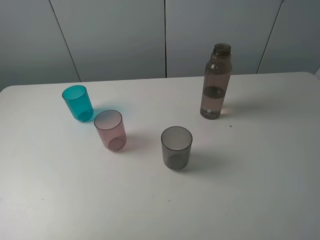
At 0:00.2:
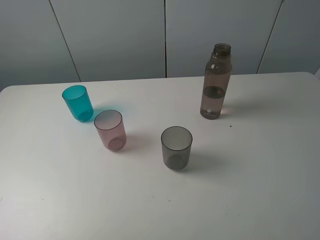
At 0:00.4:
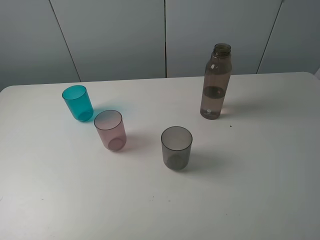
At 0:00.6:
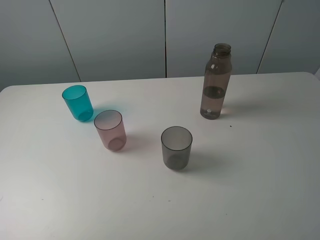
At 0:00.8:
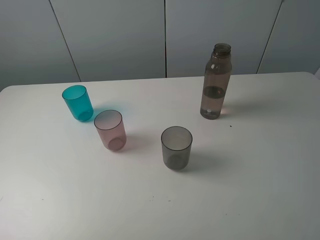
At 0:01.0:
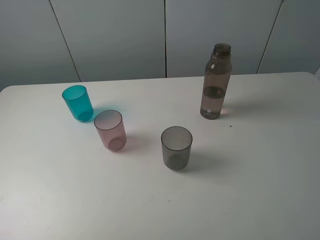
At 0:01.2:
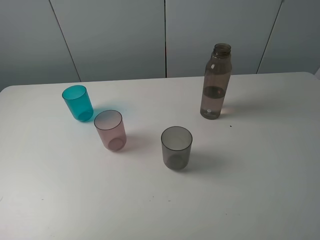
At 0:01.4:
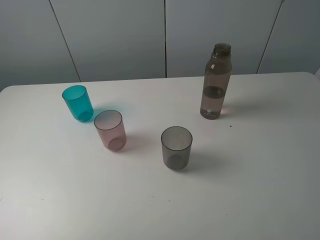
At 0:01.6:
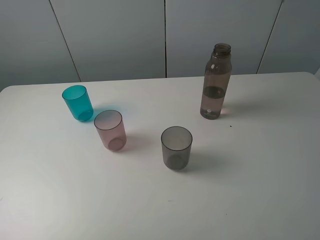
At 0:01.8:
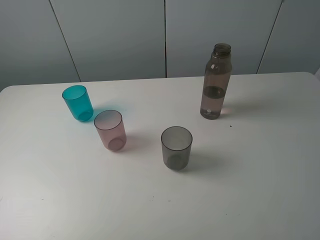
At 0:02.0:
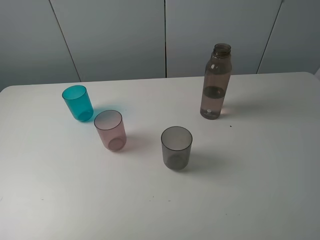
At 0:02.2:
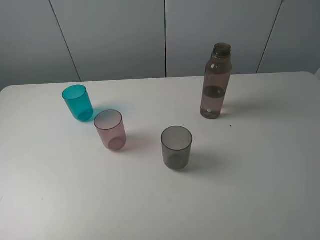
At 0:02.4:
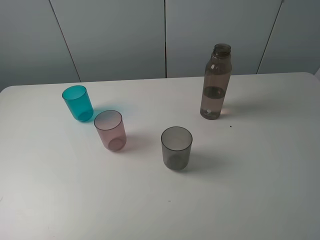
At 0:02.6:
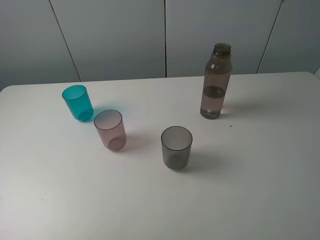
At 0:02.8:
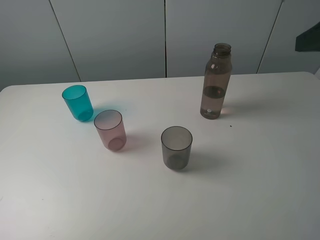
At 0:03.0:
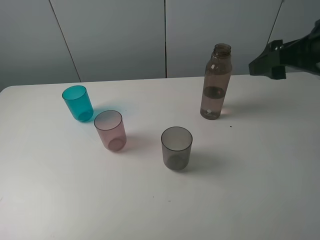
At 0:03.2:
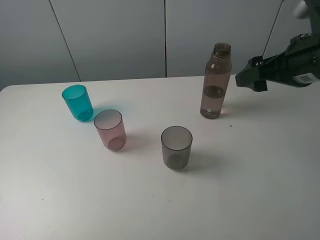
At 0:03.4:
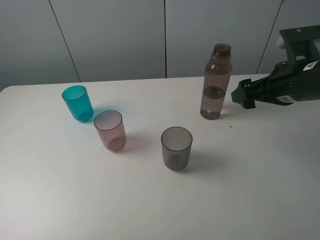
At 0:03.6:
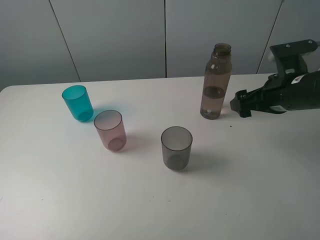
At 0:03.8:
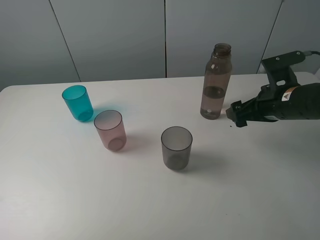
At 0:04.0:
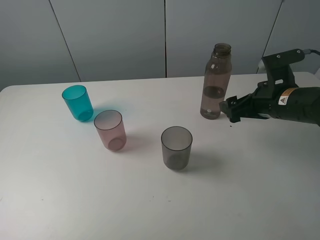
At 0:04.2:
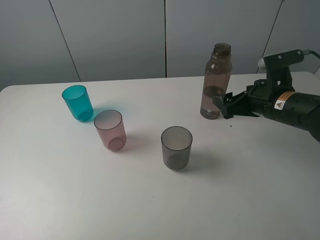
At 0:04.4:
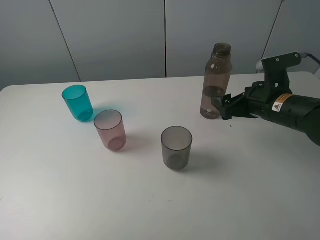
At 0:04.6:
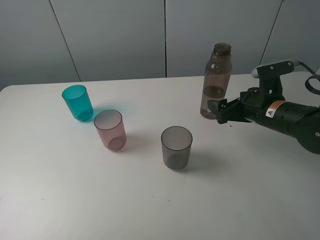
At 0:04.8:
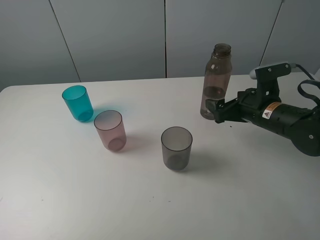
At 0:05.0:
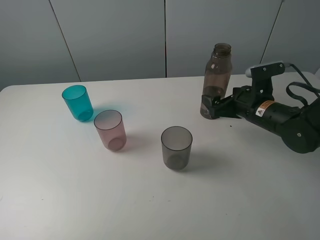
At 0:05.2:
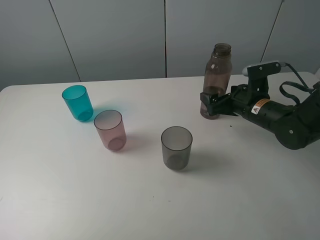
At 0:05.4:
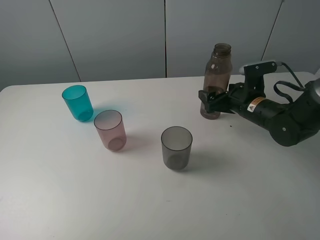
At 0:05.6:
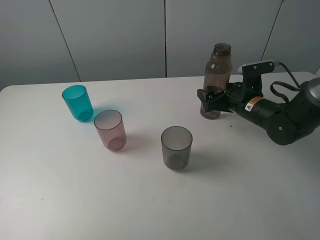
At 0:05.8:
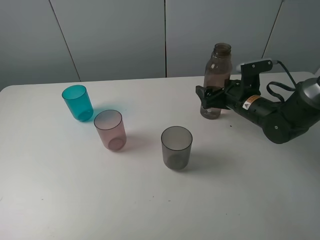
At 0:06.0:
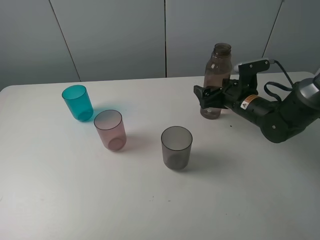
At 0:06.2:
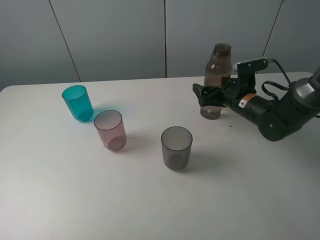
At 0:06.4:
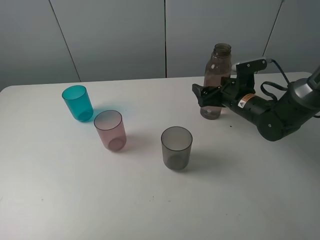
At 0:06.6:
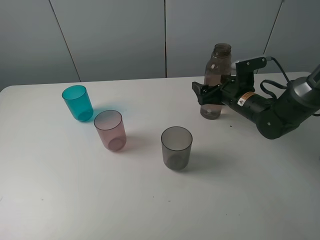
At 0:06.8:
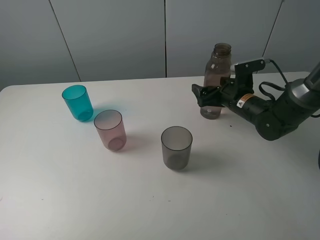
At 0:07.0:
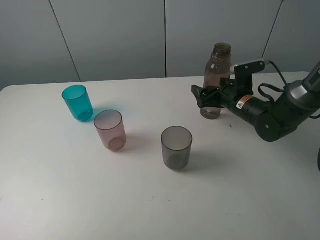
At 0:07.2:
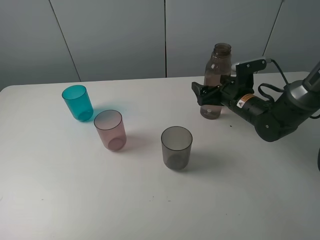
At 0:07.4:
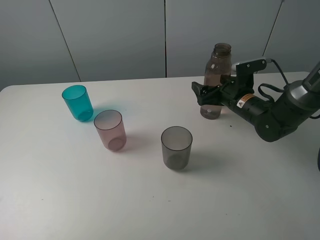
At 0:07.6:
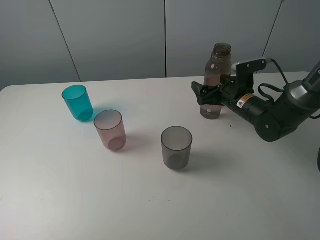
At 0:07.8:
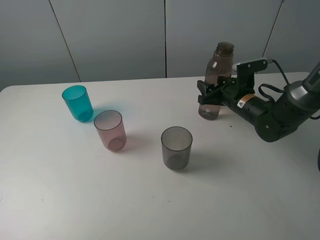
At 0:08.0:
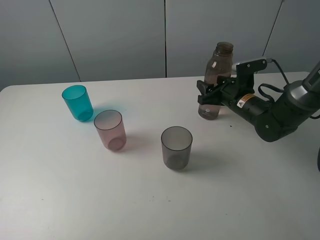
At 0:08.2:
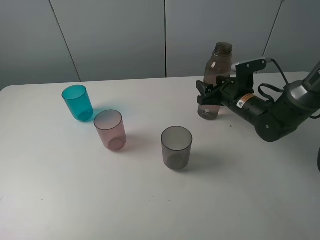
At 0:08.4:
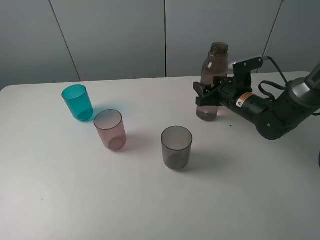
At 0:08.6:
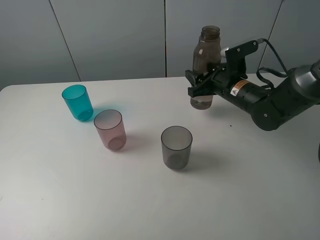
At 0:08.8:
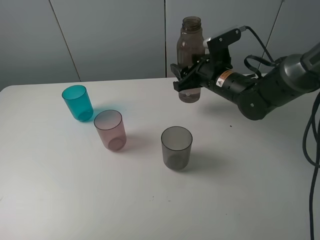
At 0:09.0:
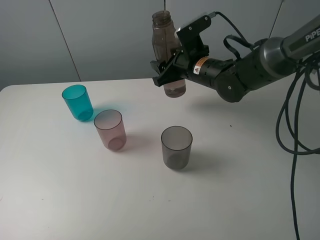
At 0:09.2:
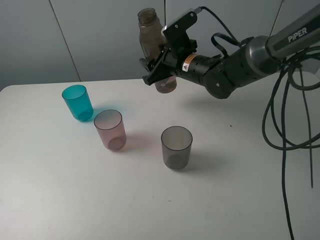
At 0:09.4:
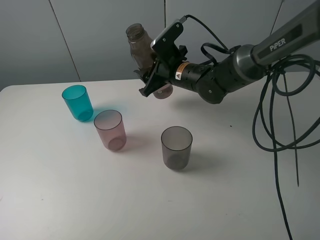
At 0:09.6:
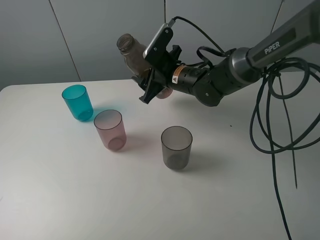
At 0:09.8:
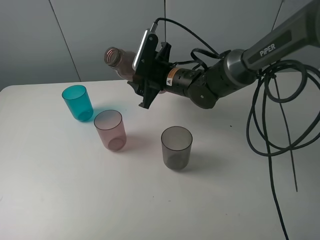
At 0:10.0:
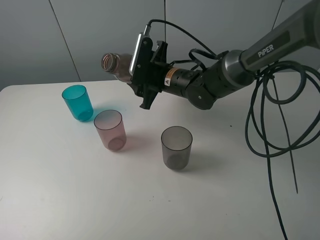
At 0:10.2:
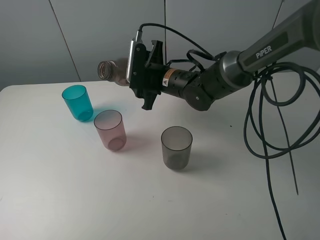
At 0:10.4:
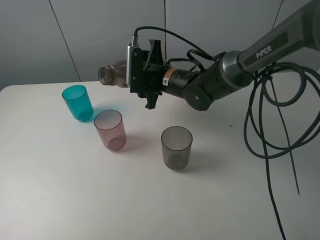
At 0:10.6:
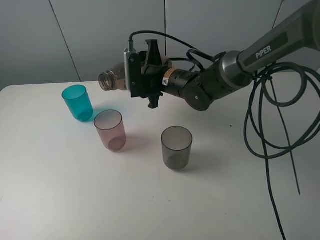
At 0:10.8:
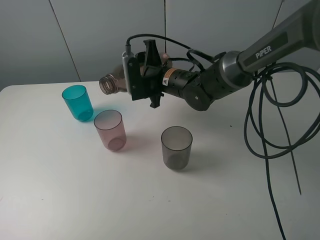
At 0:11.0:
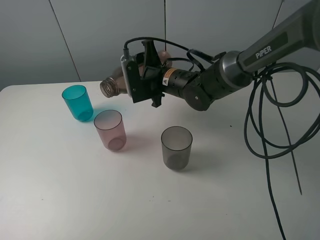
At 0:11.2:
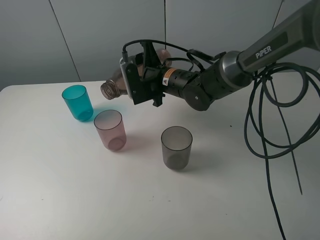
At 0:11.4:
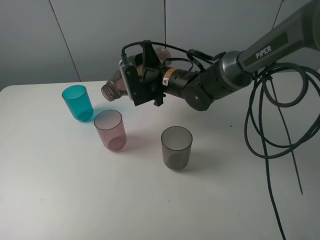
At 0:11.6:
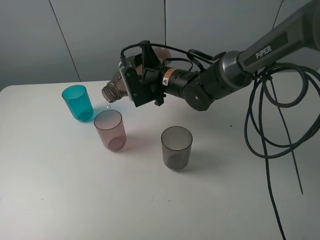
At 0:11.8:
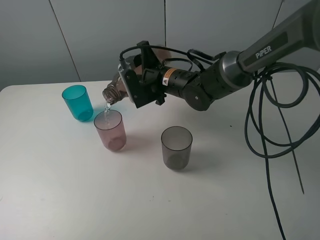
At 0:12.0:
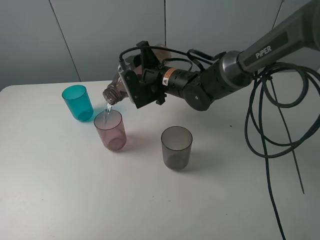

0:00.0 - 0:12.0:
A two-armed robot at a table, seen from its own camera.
Task of the whole recording: pick up the bottle filled with water and pour water into the middle cup of the three cups.
Step, 0:00.0 - 0:08.4: Grasp the brown bottle with the right gripper.
Step, 0:08.6 - 0:11.0: Pour water from transparent bottle to red cup with the right gripper.
0:00.0 - 0:01.6: Both grippers stay about where they are.
0:01.6 - 0:03.0: The right gripper is displaced forward by roughly 25 cm.
0:03.0 - 0:04.4: The right gripper shifts about 15 cm downward.
0:04.4 - 0:06.0: The right gripper shifts about 10 cm forward and downward.
0:06.0 - 0:07.6: Neither gripper changes place.
0:07.6 - 0:09.0: The right gripper heads to the left and upward, covering some 15 cm, and closes its fingers.
0:09.0 - 0:10.4: The right gripper shifts roughly 5 cm to the left.

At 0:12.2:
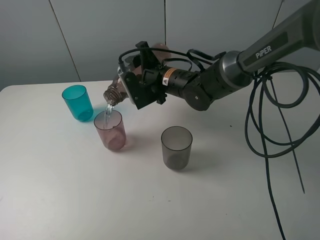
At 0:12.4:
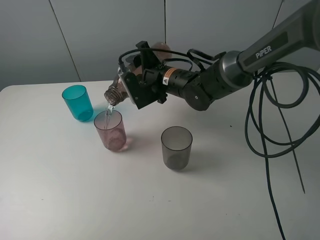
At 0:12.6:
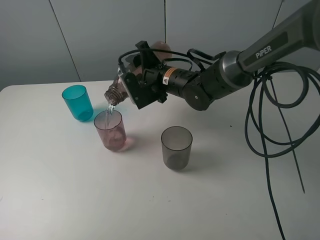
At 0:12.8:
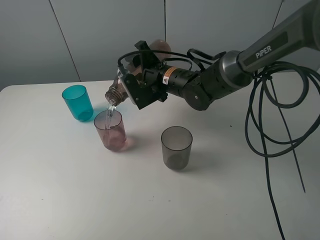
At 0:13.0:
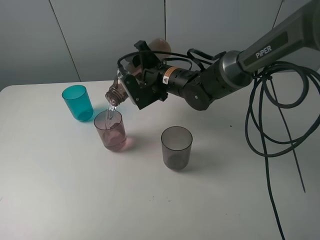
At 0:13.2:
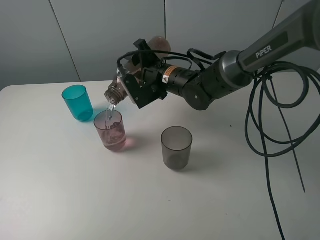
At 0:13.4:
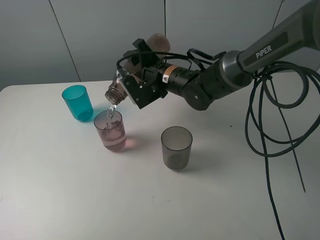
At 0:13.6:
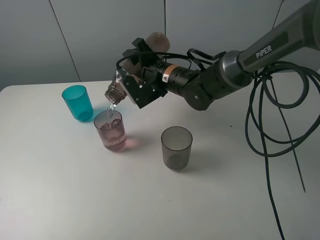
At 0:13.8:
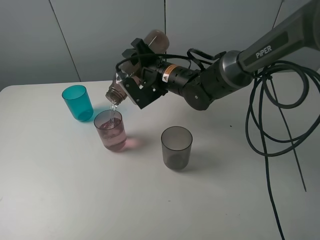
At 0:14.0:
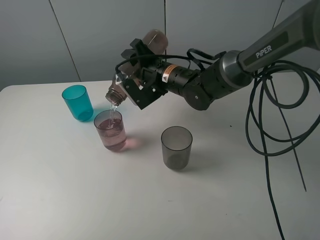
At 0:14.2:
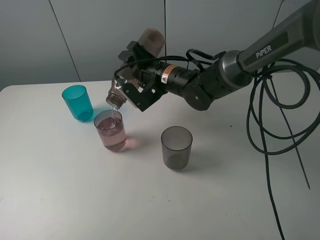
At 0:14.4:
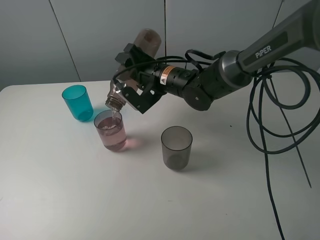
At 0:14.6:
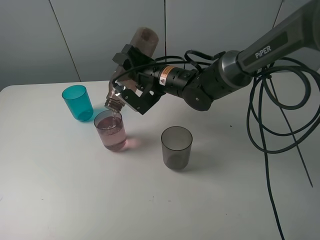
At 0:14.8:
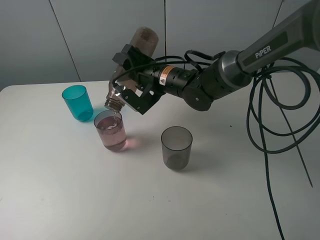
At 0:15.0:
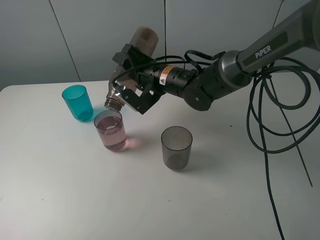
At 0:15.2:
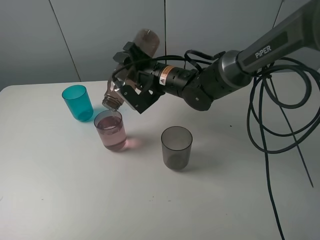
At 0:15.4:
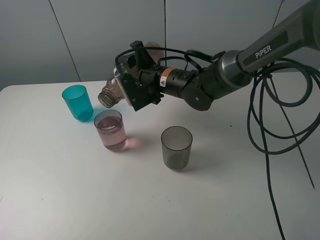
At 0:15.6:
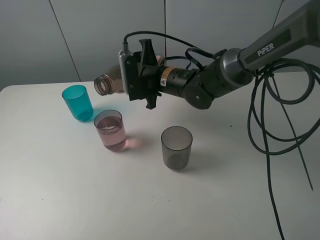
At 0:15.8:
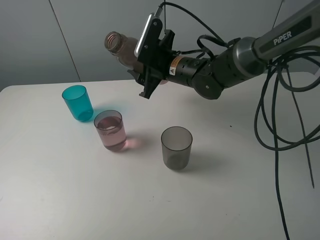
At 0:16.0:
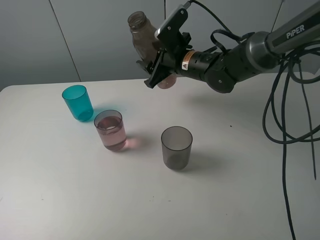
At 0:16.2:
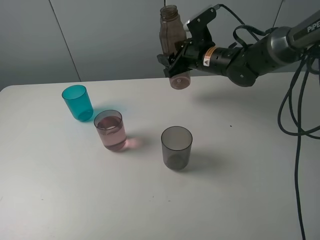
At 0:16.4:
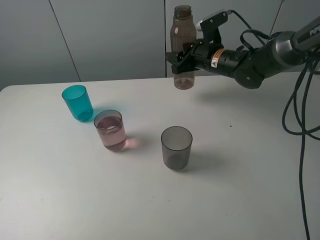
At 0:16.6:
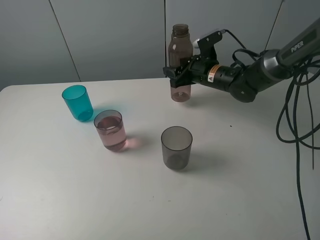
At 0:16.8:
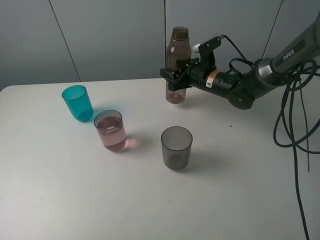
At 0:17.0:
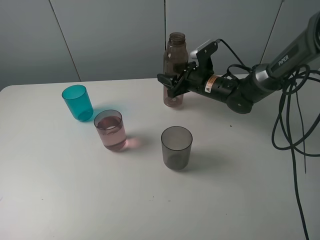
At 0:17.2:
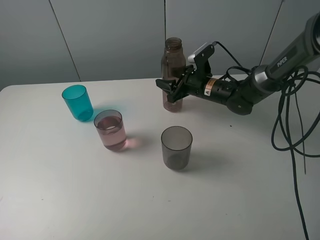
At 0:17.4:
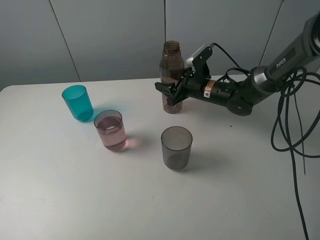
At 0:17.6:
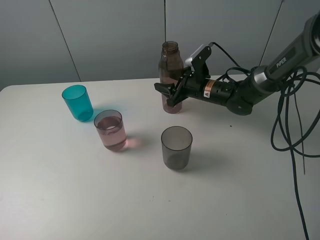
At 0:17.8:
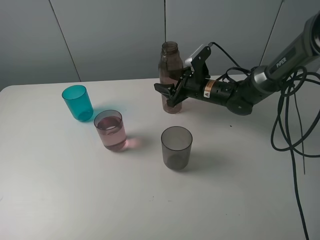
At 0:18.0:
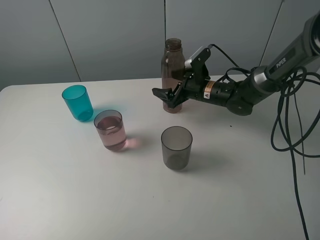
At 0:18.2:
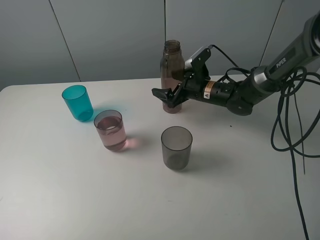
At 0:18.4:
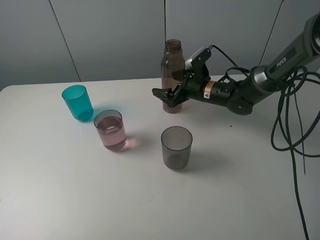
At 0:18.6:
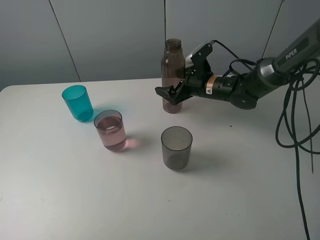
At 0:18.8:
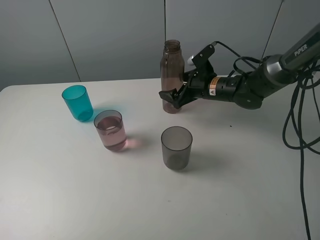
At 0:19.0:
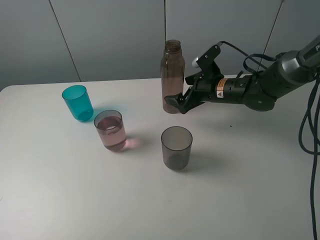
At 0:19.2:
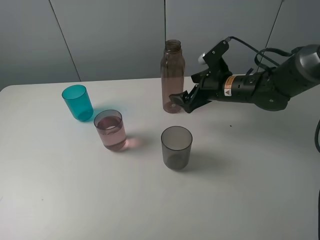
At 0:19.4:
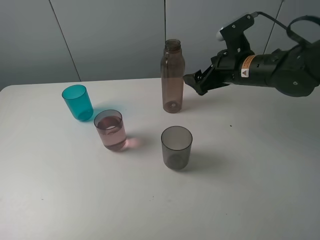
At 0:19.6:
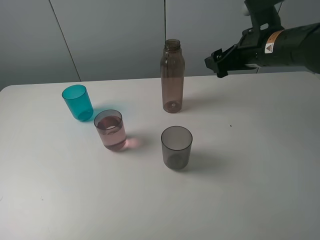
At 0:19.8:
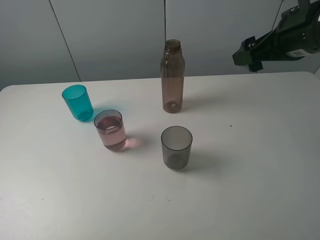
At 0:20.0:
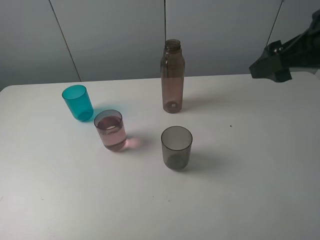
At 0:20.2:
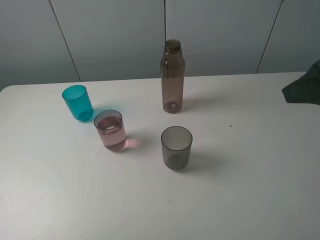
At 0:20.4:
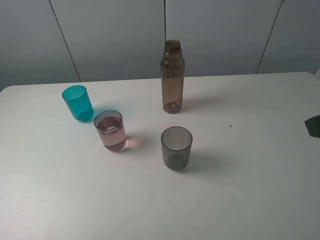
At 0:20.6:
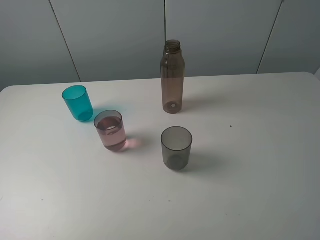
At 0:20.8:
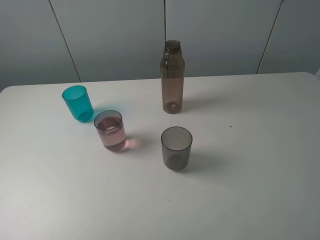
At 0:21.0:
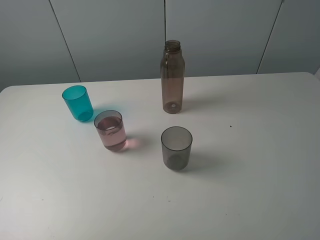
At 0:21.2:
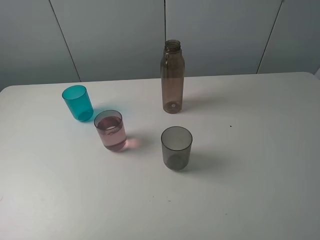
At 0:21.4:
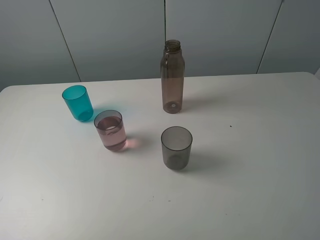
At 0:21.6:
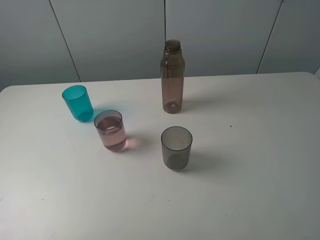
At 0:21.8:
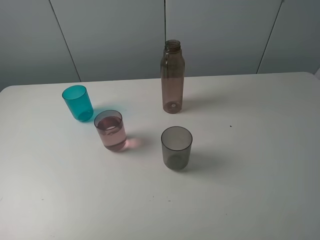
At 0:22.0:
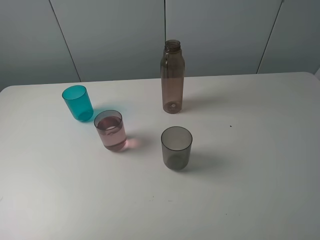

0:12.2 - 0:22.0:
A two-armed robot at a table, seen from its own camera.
Task of the whole recording: pick up the bottle filled with water and pour water into the middle cup of the three cups.
Step, 0:12.2 - 0:18.8: Place the brown bottle with the right gripper.
0:12.2 - 0:13.6: The grippers make only small movements.
0:13.6 - 0:15.0: The grippers move only a little.
0:15.0 - 0:16.4: The right gripper travels to the right and forward by roughly 15 cm.
0:16.4 - 0:17.8: The right gripper goes approximately 5 cm downward.
0:17.8 - 0:19.2: The right gripper heads backward and upward, covering about 10 cm, and opens its fingers.
0:19.2 - 0:20.6: The right gripper heads backward, upward and to the right, covering some 40 cm.
